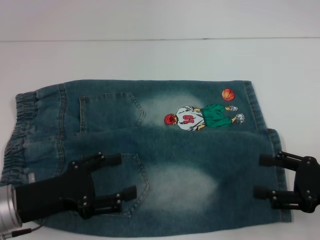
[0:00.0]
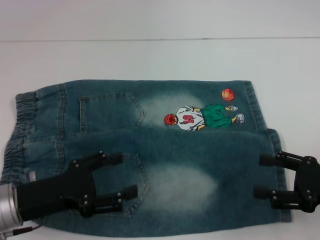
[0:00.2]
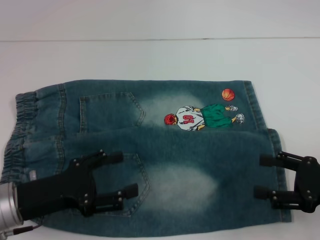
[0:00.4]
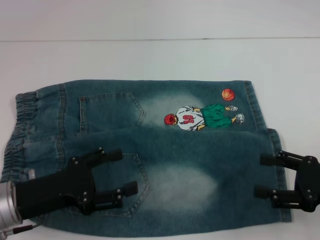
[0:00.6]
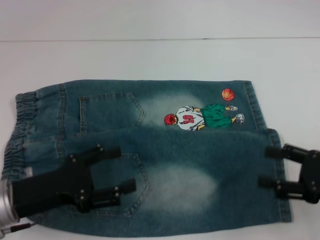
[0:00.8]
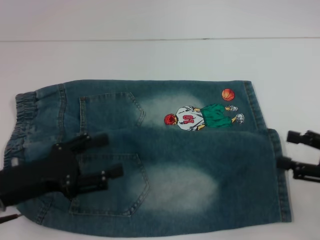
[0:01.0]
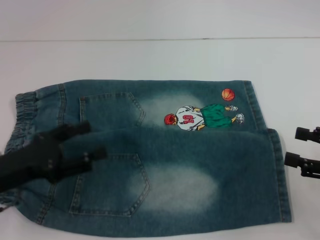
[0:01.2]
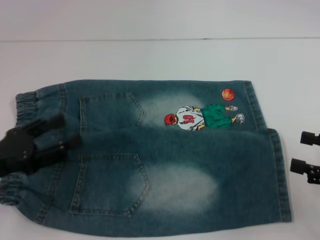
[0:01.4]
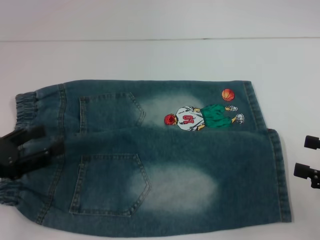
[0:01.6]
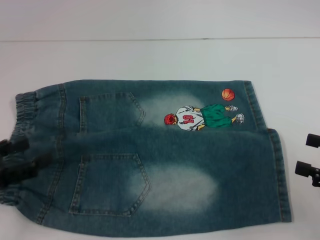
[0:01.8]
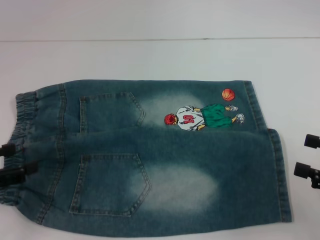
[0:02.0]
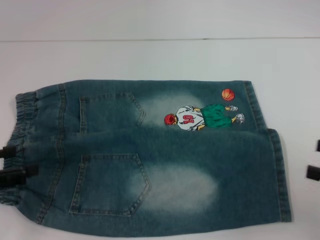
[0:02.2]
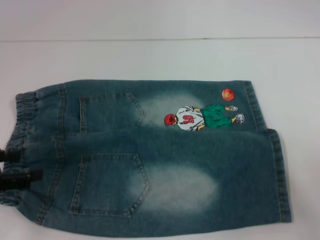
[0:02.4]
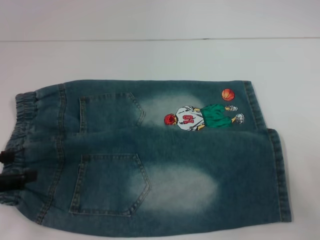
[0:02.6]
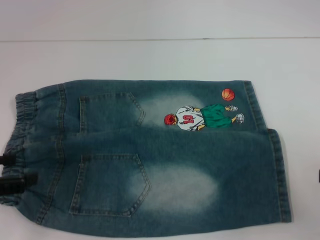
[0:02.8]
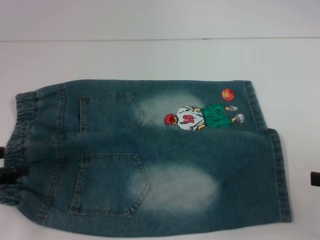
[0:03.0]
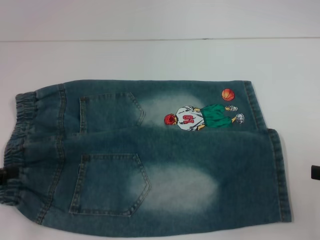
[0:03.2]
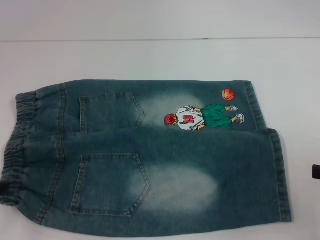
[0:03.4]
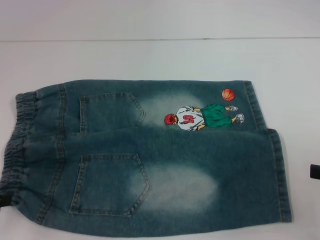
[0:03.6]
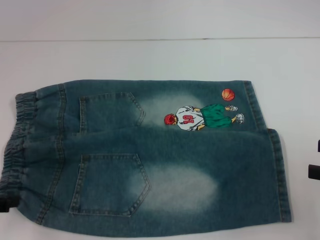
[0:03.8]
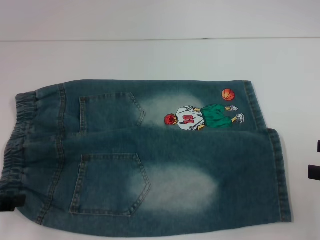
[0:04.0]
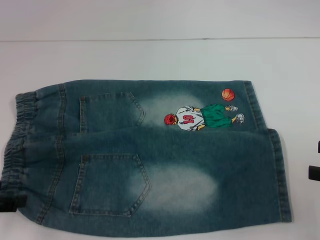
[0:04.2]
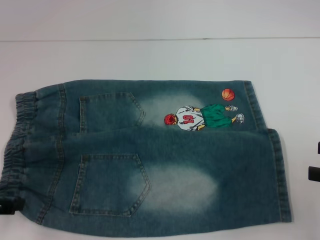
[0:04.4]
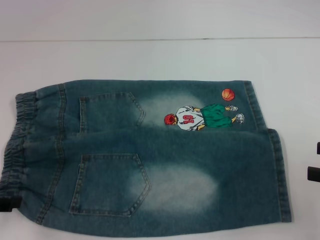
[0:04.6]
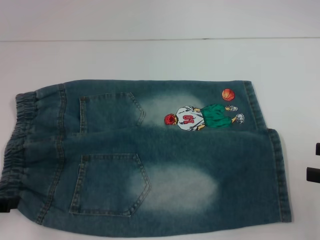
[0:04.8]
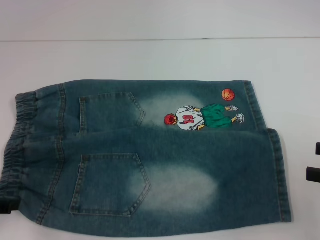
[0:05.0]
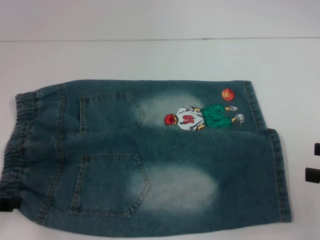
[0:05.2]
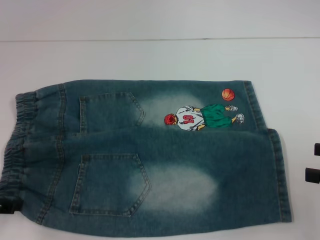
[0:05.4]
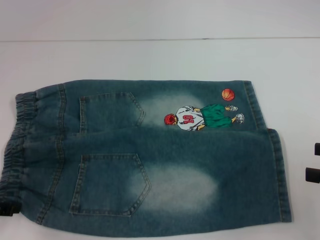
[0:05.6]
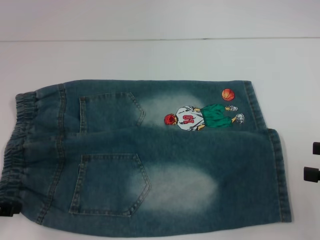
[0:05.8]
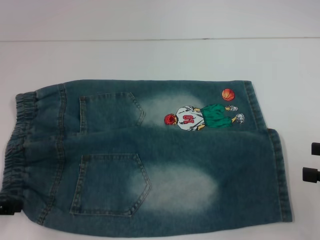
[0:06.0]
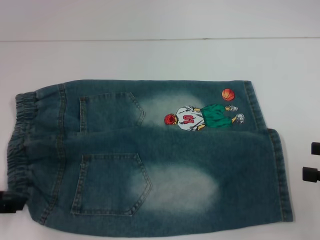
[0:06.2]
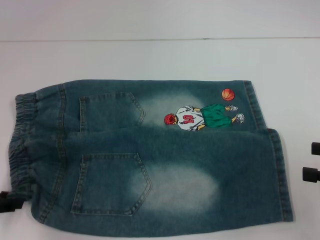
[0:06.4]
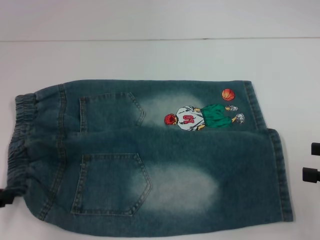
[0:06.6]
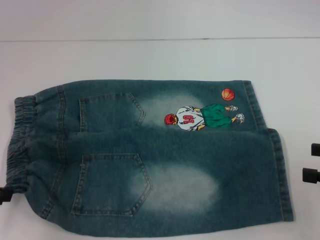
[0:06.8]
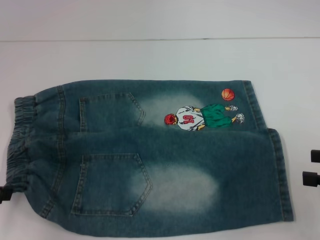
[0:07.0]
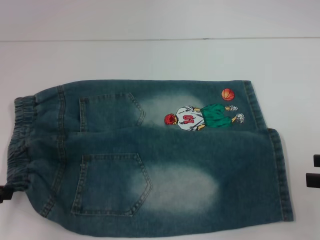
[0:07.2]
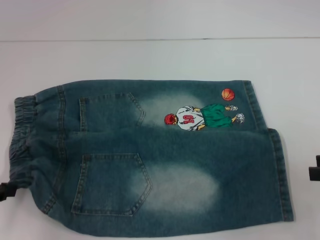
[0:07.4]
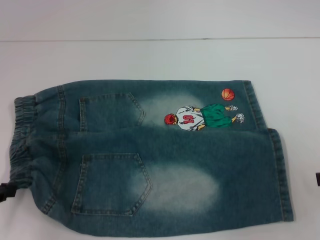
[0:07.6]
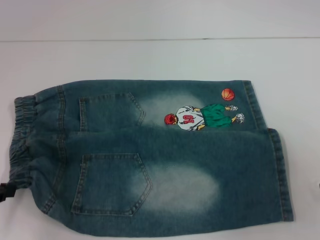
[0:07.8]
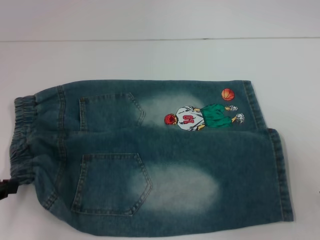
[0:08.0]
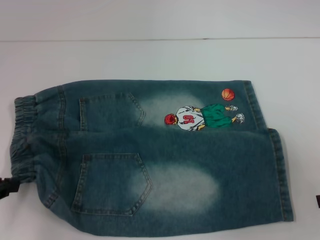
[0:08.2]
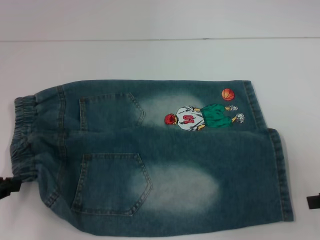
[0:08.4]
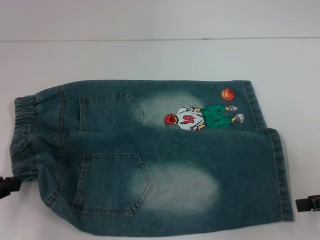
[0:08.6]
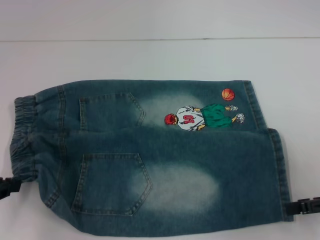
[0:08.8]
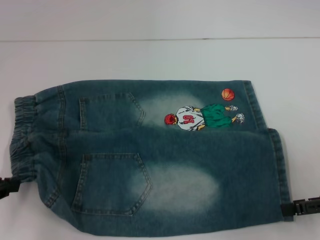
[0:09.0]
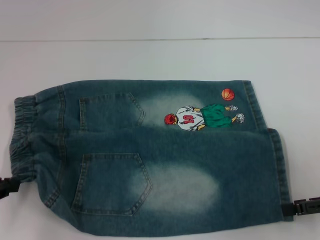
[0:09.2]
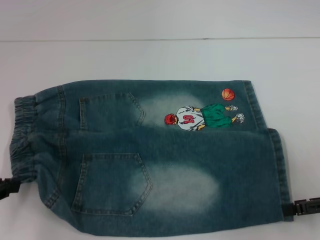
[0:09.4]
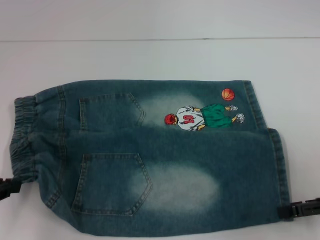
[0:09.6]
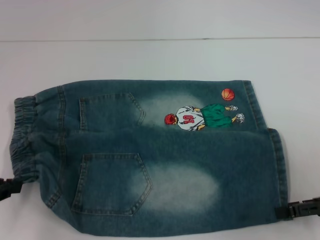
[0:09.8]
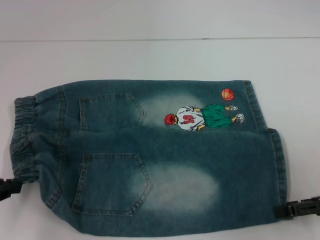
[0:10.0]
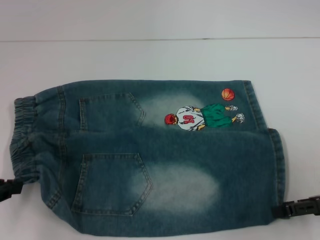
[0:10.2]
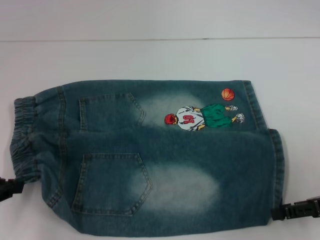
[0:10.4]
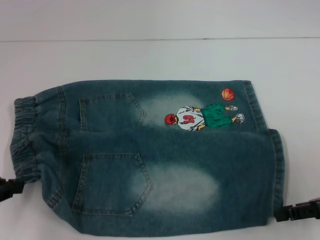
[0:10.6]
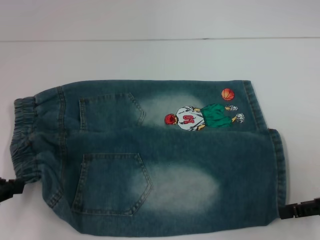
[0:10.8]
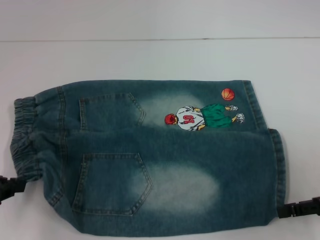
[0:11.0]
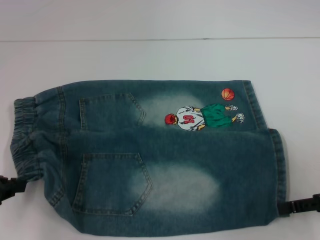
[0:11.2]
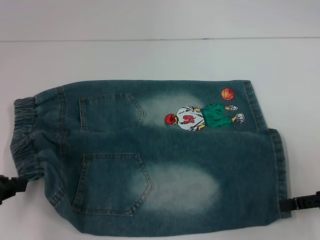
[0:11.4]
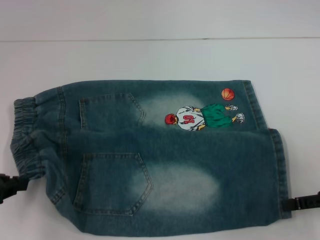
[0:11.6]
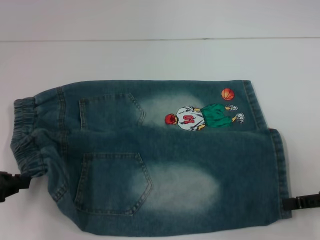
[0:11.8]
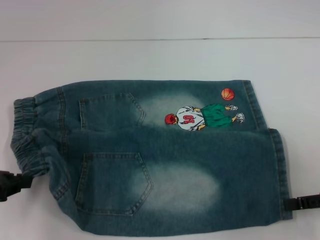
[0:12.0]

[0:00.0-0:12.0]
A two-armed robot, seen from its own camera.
Step, 0:00.0 to 0:06.2: Hold the lower left waistband with your left hand.
Step, 0:06.4 to 0:11.0: Grab the lower right pant leg with your right hand.
0:00.0 to 0:01.6: The left gripper heads to the left, covering roughly 5 cm. Meanwhile the right gripper shifts by about 5 cm.
0:01.6 to 0:03.0: The left gripper shifts by some 5 cm.
0:03.0 to 0:04.4: The grippers make only small movements.
0:06.0 to 0:07.6: The left gripper closes.
0:07.6 to 0:09.0: The right gripper is displaced downward by roughly 5 cm.
0:09.0 to 0:10.4: There are only small adjustments of the grippers.
0:10.4 to 0:12.0: The right gripper closes its fingers.

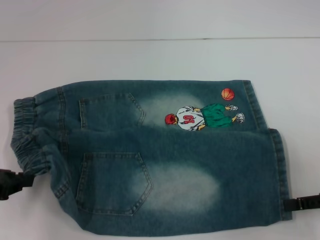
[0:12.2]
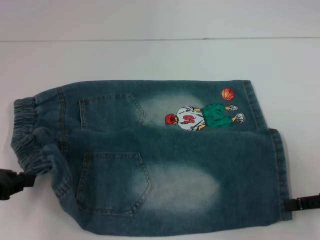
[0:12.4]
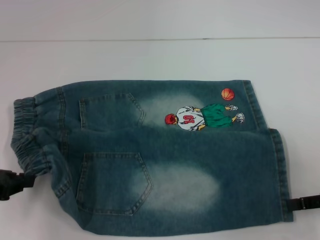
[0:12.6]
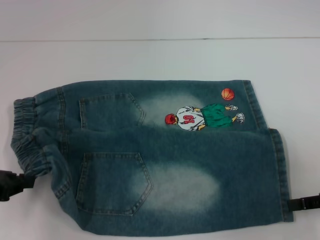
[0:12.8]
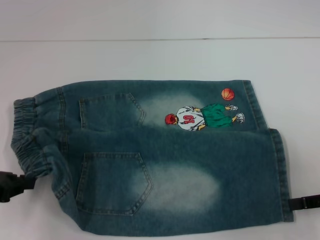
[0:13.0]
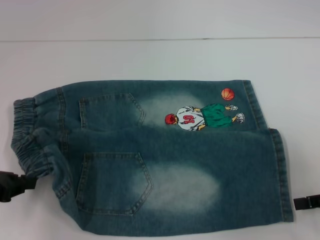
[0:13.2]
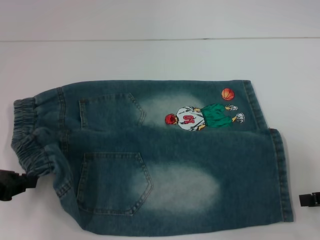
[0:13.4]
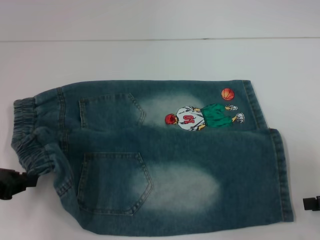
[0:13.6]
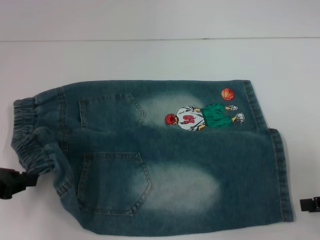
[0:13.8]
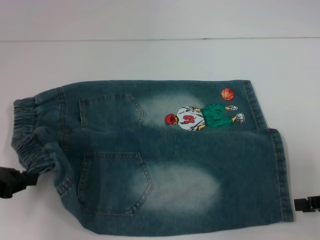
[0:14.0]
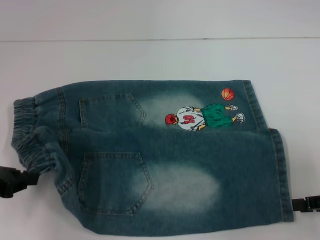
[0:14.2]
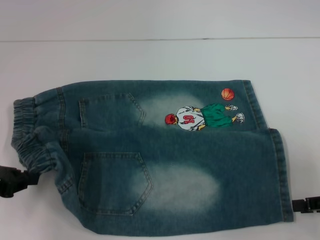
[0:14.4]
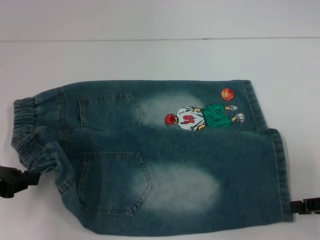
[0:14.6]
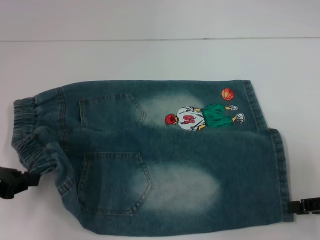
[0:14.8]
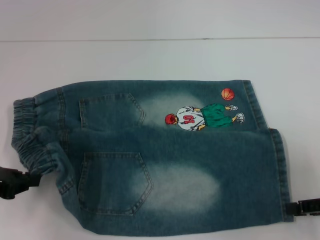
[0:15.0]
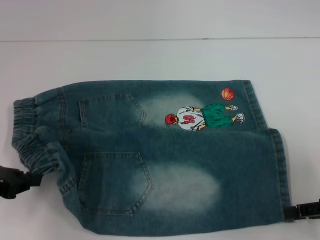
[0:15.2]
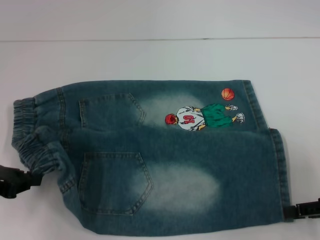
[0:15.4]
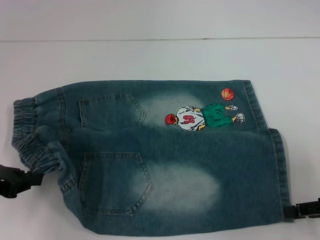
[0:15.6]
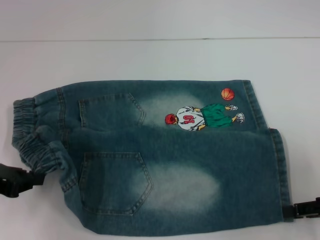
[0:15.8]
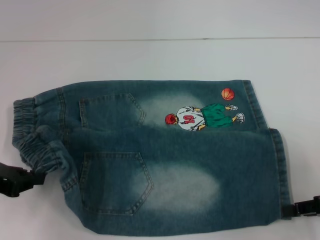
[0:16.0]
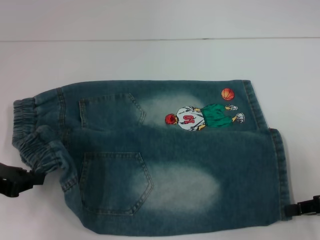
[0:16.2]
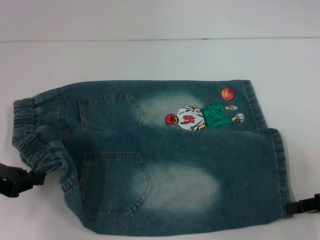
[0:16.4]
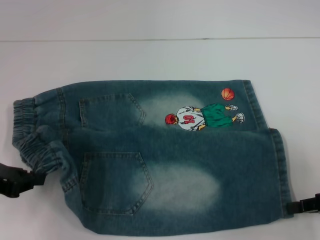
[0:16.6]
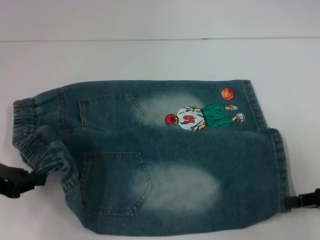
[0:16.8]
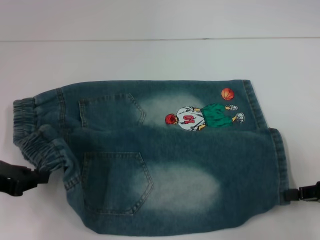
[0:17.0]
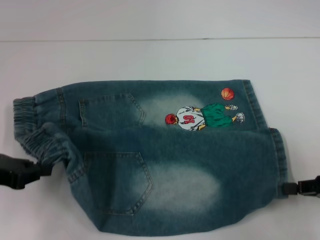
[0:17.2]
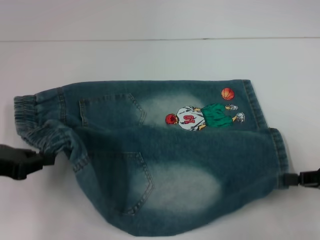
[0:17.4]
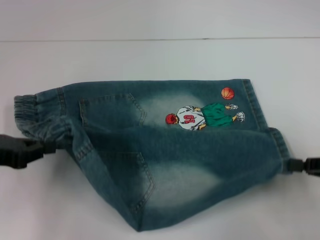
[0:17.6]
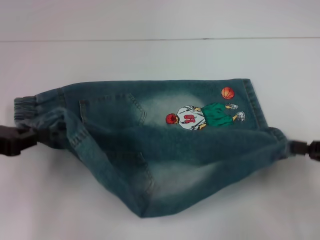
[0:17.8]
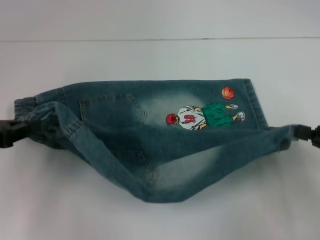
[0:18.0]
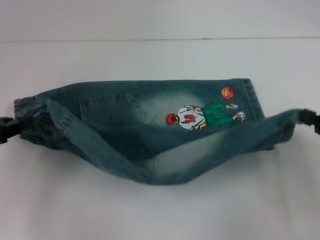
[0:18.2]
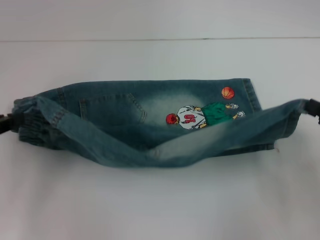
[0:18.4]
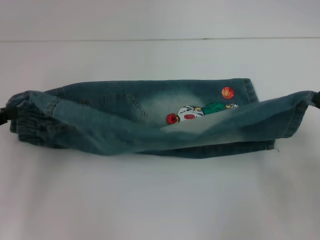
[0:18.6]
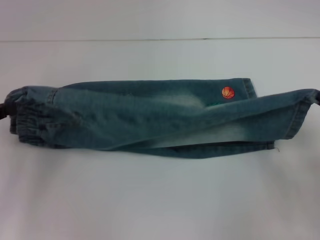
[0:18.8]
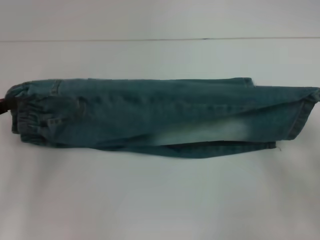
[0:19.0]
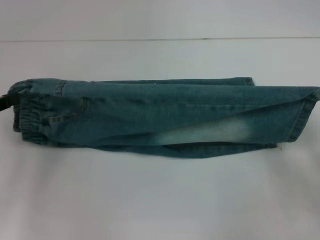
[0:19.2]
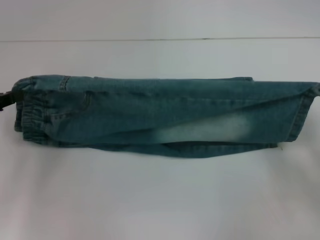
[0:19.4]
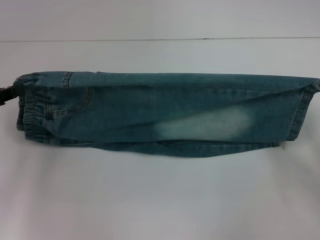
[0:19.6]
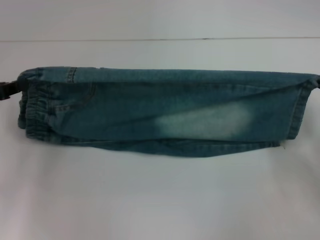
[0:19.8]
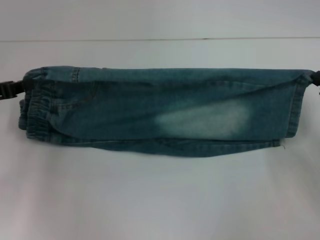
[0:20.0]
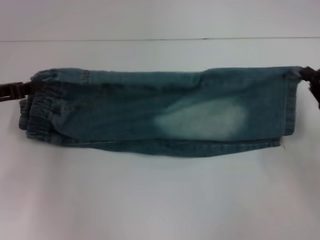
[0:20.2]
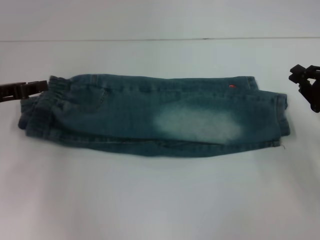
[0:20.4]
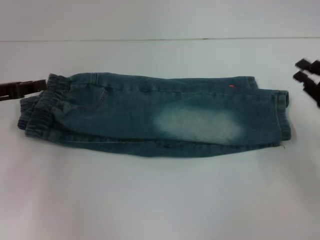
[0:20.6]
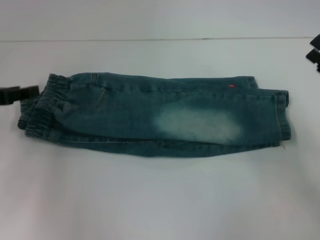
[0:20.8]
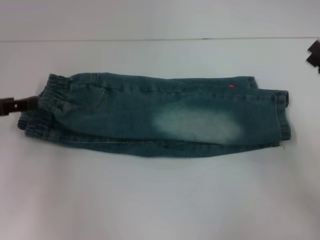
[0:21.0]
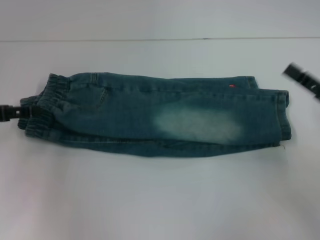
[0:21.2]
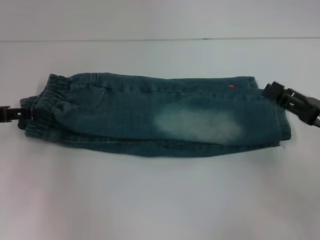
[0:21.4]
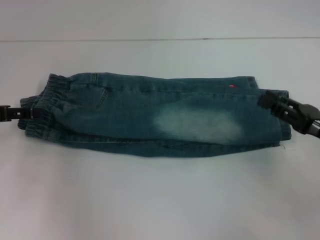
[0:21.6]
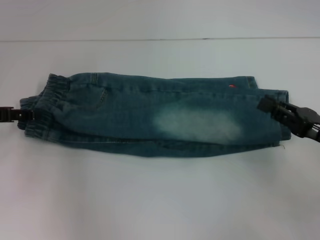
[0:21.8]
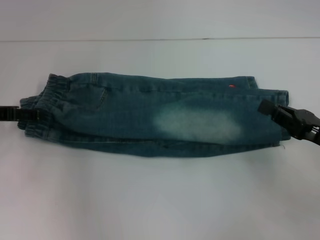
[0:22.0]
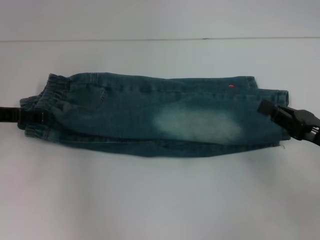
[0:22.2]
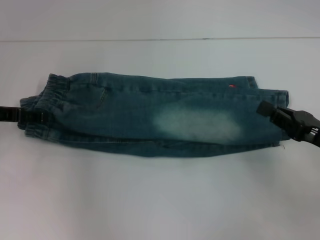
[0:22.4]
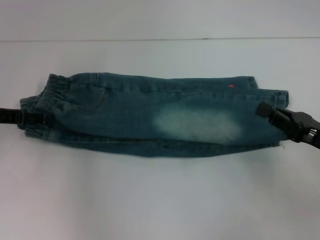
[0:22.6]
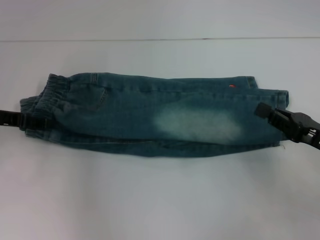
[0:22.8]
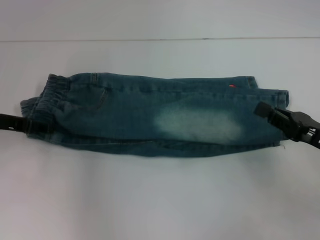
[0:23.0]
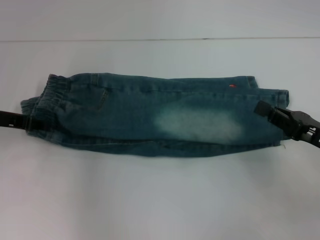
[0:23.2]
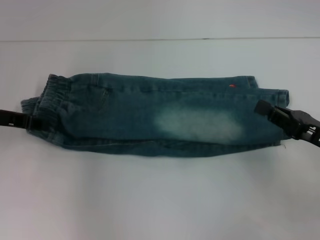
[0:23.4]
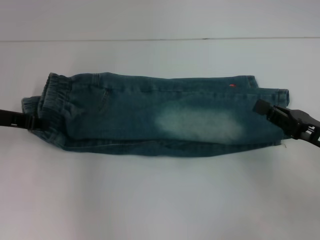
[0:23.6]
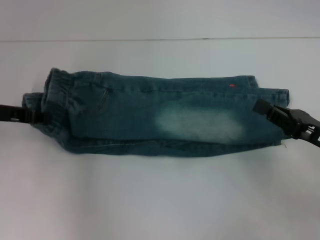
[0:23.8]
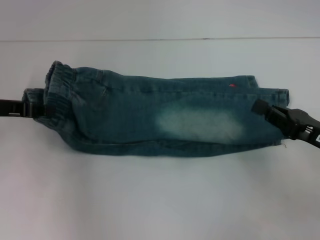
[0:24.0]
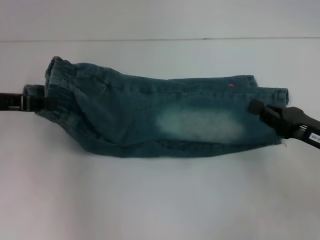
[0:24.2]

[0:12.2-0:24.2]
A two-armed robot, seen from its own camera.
Step, 0:12.2 to 0:20.2: Fold upward with your right hand.
Step, 0:20.4 to 0:22.8: Hold the waistband with your left hand.
0:12.2 to 0:15.2: The grippers move only a little.
0:15.2 to 0:16.6: The right gripper closes its fingers.
0:19.8 to 0:21.2: The right gripper opens; the left gripper opens.
0:21.2 to 0:22.6: The right gripper closes up.
0:22.6 to 0:24.2: The left gripper closes.
